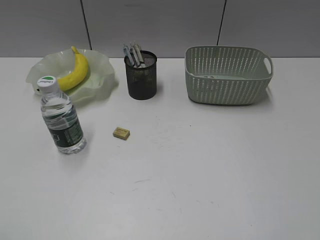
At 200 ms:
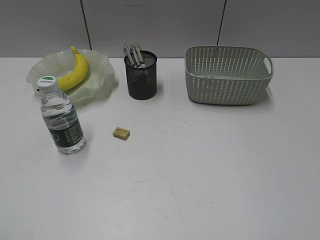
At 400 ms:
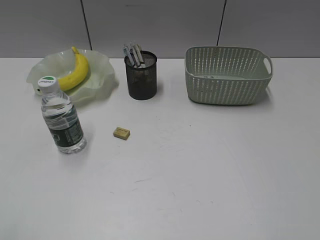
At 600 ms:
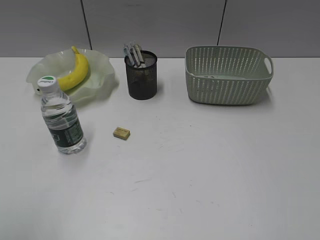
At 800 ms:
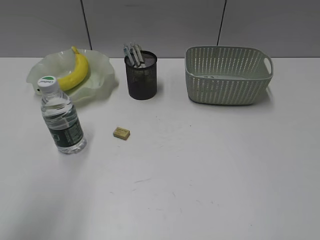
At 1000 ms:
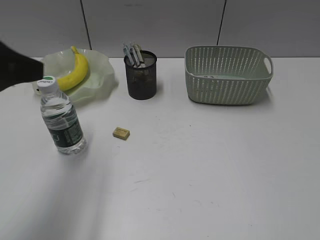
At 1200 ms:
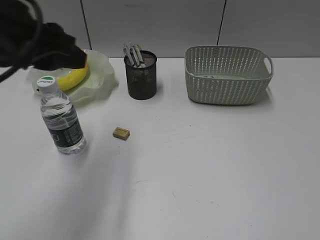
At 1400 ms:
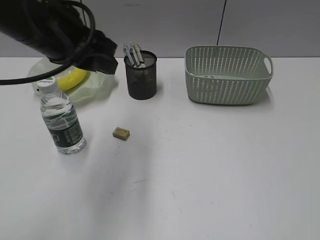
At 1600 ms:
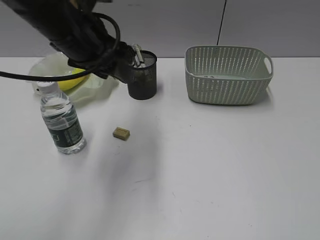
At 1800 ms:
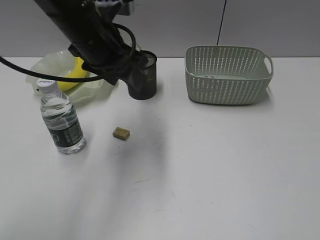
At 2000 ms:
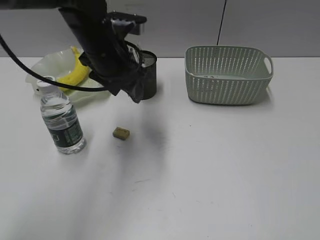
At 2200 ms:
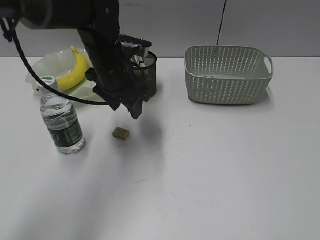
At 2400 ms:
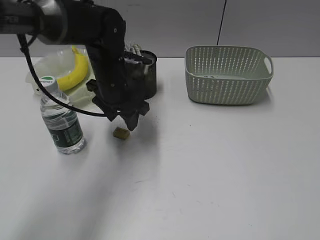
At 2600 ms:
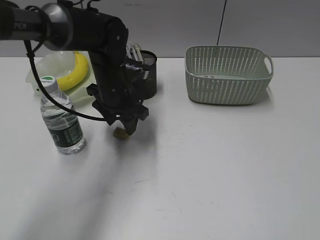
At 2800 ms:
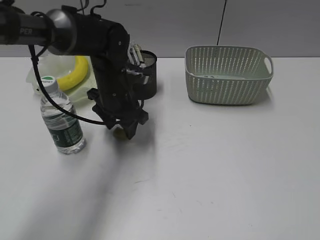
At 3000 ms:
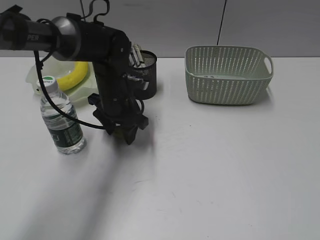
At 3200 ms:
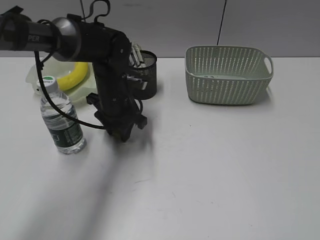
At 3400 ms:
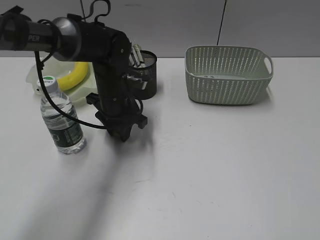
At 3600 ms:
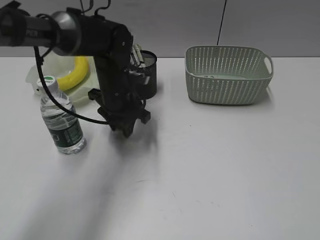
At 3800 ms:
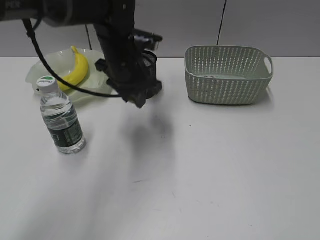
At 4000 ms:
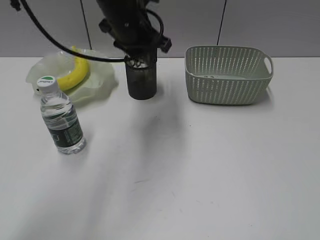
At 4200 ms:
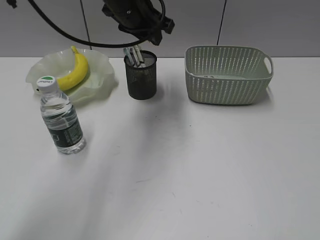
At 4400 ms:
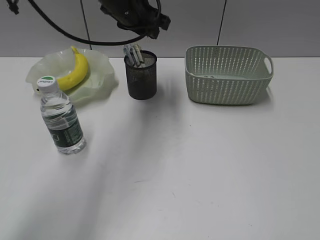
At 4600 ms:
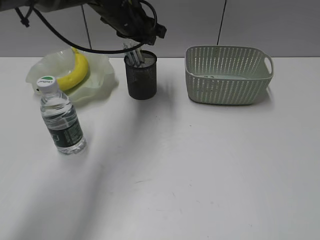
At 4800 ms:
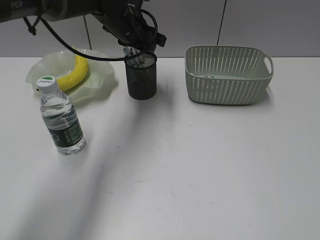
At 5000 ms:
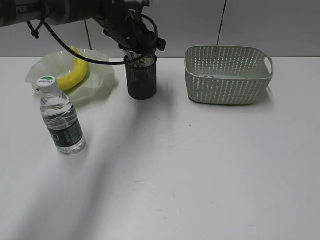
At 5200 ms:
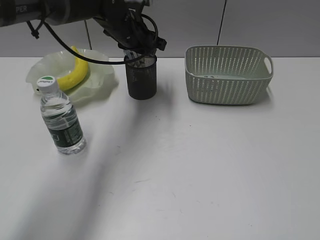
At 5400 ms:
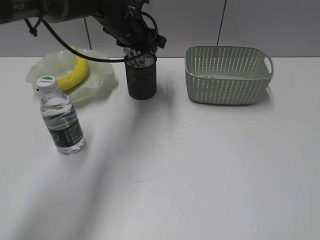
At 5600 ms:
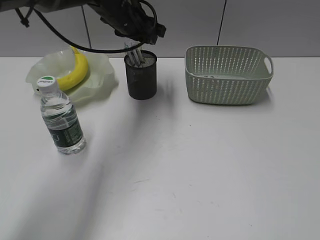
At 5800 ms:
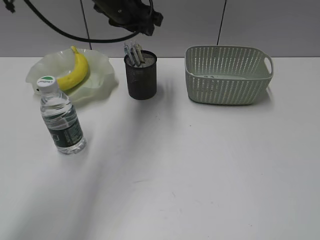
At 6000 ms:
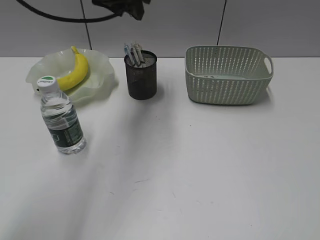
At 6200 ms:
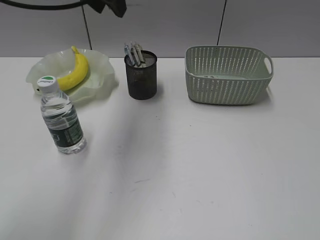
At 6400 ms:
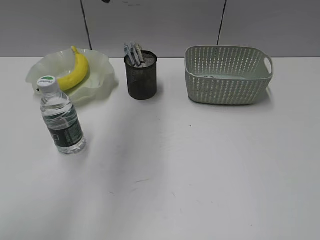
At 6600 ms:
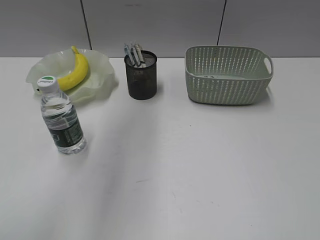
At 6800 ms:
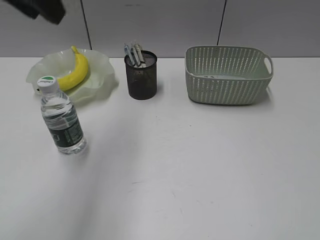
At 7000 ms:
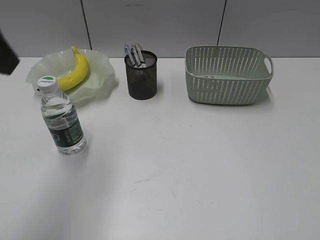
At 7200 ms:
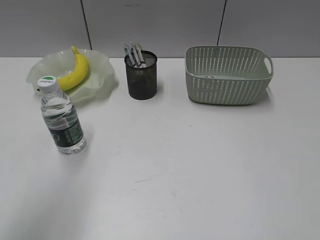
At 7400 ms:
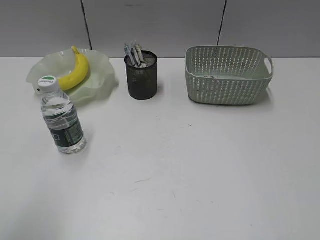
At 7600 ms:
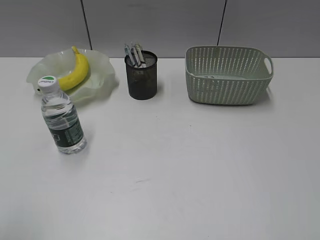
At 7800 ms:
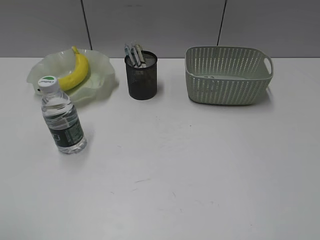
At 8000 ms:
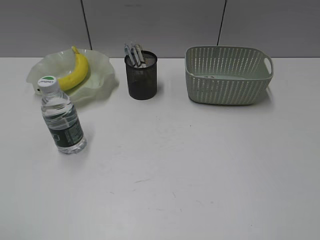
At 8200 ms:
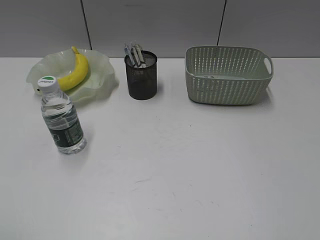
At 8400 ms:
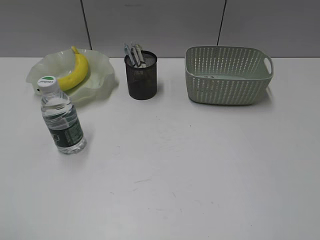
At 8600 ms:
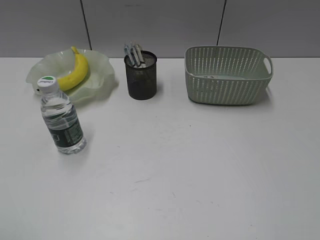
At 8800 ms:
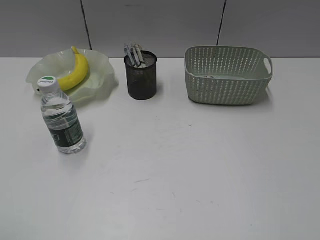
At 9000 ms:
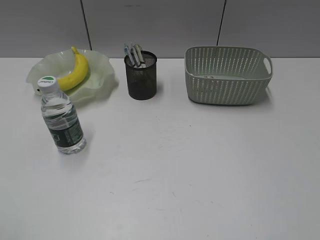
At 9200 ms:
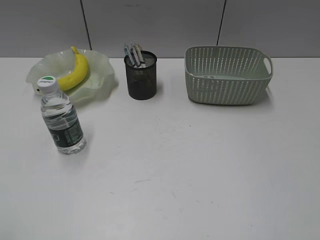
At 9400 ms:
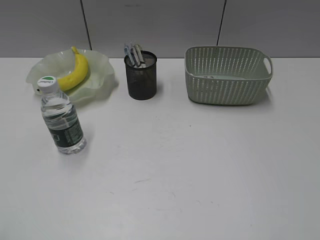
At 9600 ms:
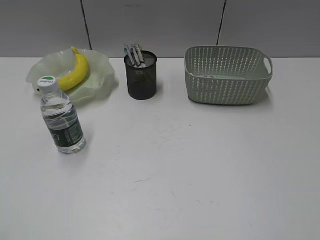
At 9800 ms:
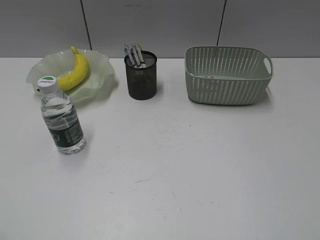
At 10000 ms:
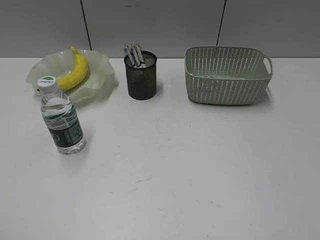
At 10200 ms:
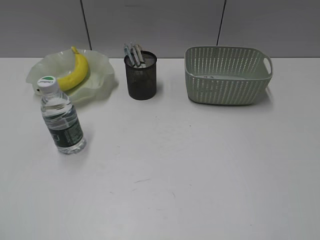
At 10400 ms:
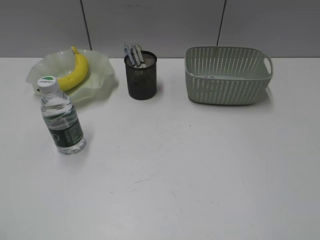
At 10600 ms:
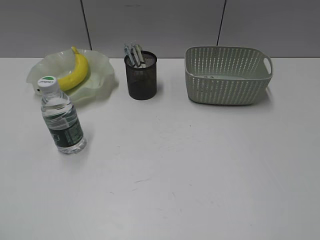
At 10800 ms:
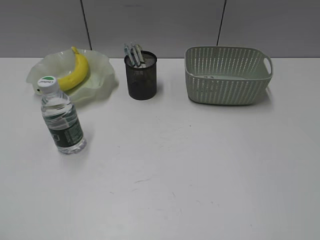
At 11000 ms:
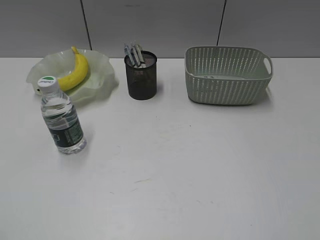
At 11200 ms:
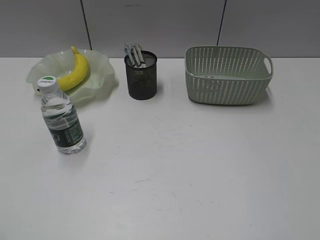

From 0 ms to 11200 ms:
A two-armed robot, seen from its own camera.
Step, from 0 ms to 3400 ms: Grasp the eraser with left gripper.
Step, from 3600 ms to 5400 ms: Place the eraser in pen holder with left gripper.
From 0 ms to 1600 ms: The left gripper shifts approximately 40 cm forward and to the right.
From 1600 ms to 3200 ms: The left gripper moves downward and forward, approximately 20 cm.
From 3200 ms to 4800 ms: The left gripper travels upward and forward by approximately 15 cm.
From 4800 ms to 6400 ms: The left gripper goes some 20 cm upward and backward.
From 6400 ms to 8000 ms: The left gripper travels backward and to the left by roughly 40 cm.
From 9600 ms to 11200 ms: Both grippers stay about where they are.
